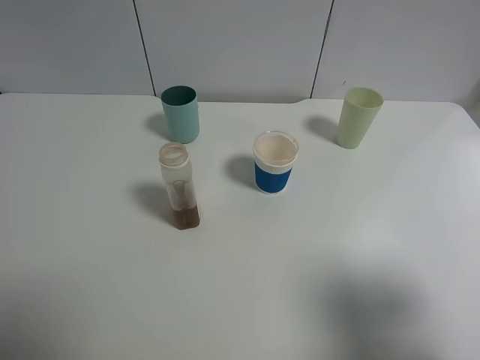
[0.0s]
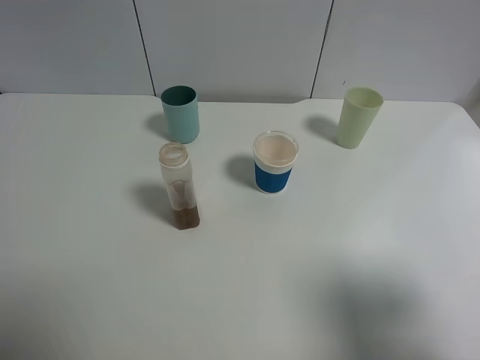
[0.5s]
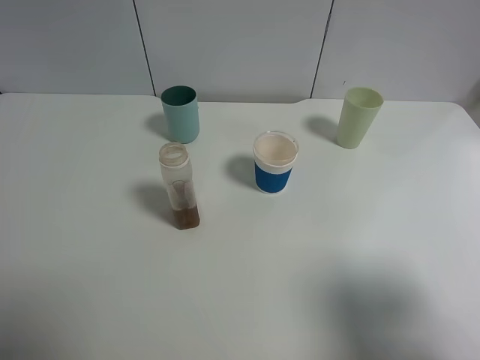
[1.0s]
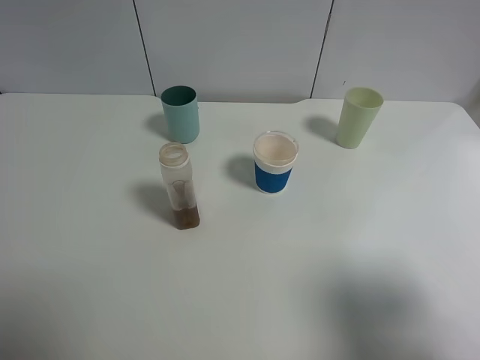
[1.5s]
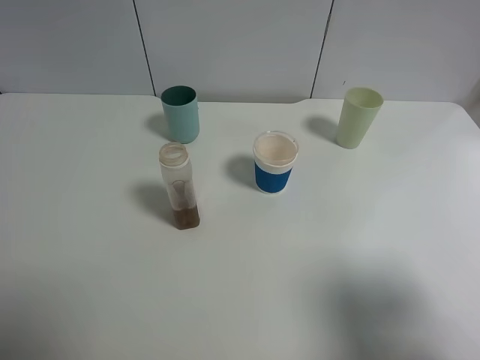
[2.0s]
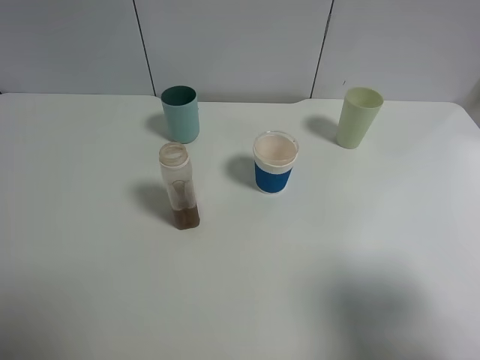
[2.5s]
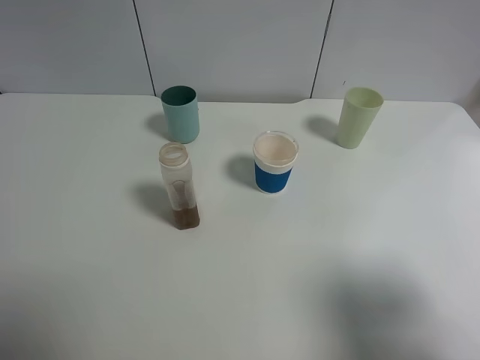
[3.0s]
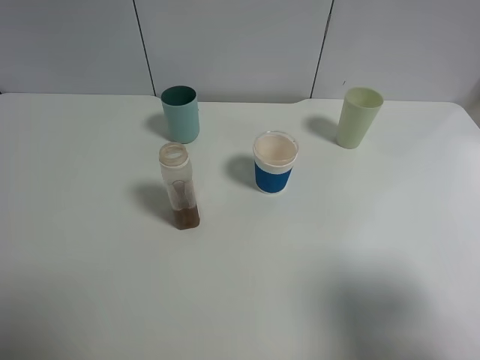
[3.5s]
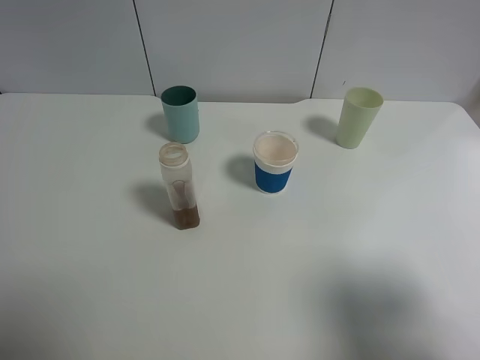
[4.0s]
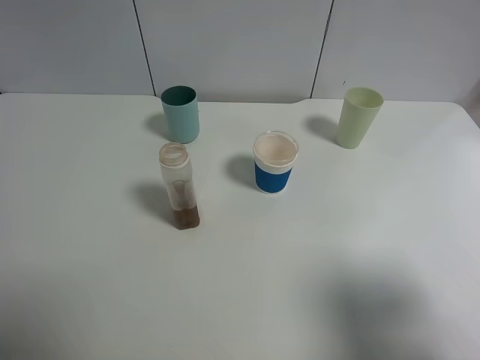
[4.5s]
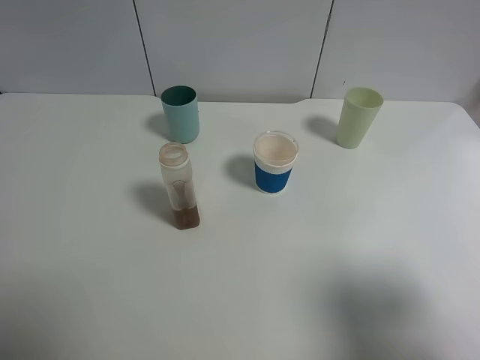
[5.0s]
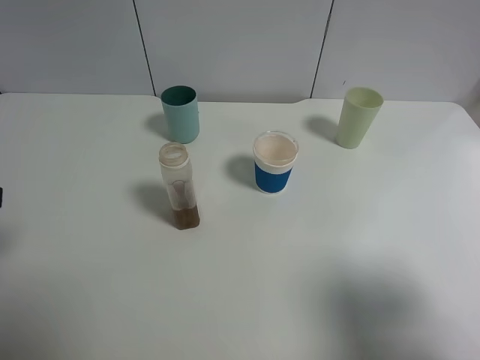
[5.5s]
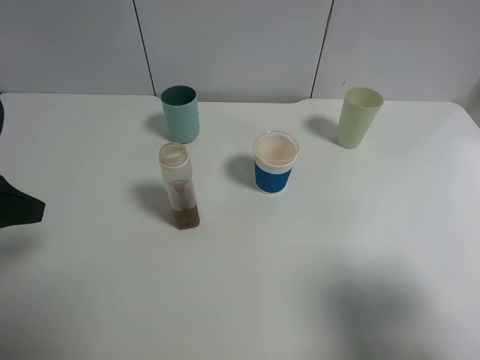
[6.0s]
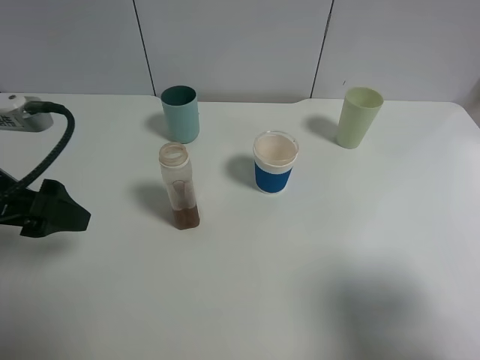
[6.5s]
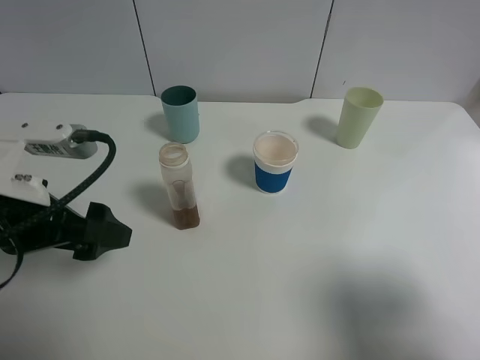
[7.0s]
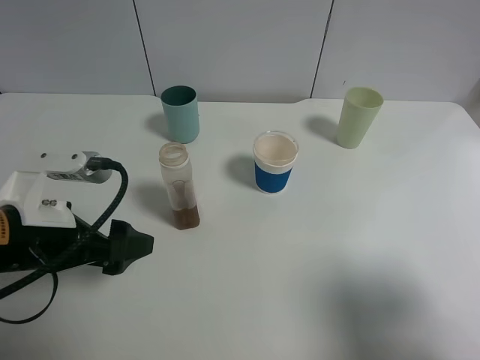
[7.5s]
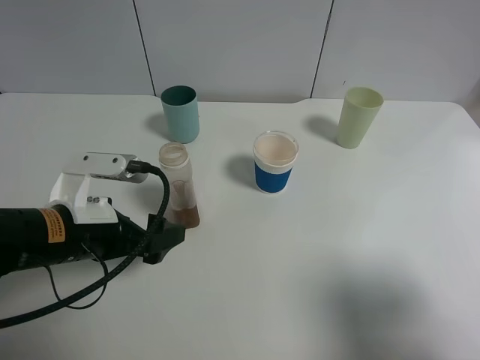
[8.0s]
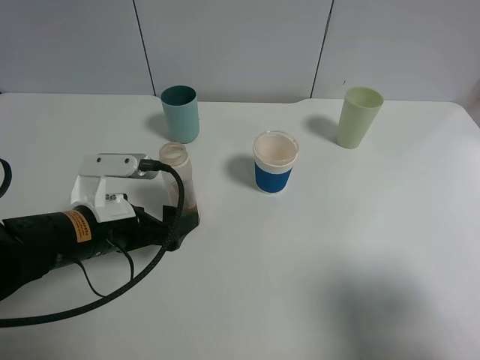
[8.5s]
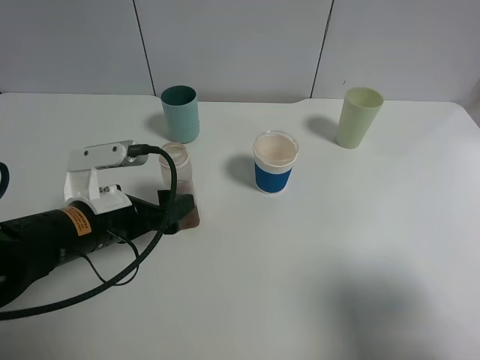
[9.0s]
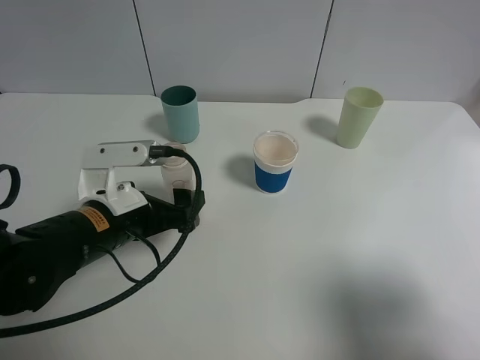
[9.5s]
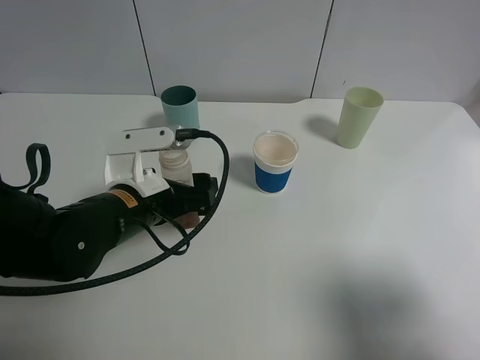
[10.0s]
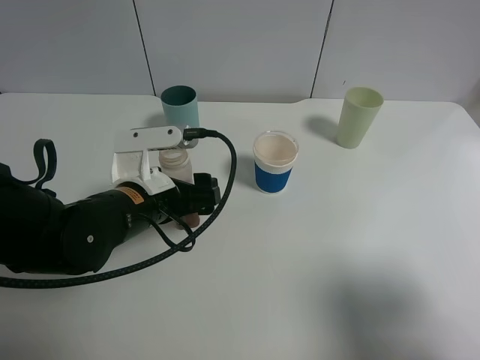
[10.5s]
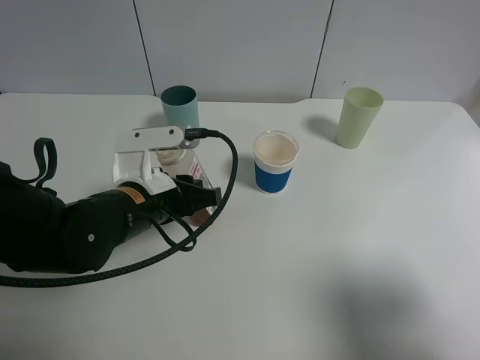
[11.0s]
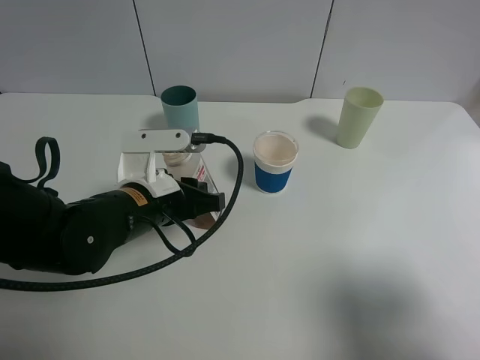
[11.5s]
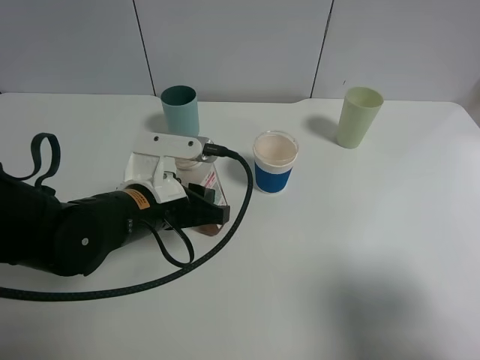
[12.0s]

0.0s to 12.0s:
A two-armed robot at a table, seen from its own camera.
Task of the whole recording: use a gripper to hold the bottle of the drink and pour it into a random cup.
Step, 0.0s to 10.5s: Grasp the cranberry juice bottle with the left gripper.
0.0s to 4.0s: Both grippers stay about where they are.
4.0s to 6.0s: The left gripper heads forward, covering about 15 cm.
6.0s to 8.0s: The left gripper shifts approximately 15 cm downward and to the right.
8.0s to 10.0s: The left gripper heads to the right, covering some 5 cm.
10.0s to 12.0s: The left gripper closes its fingers.

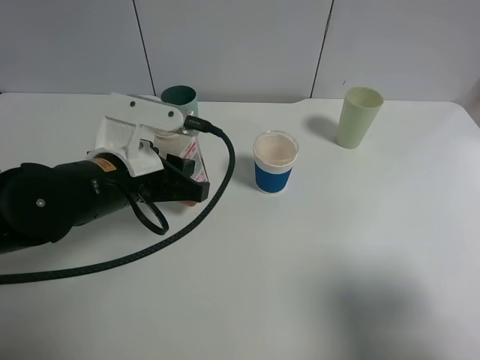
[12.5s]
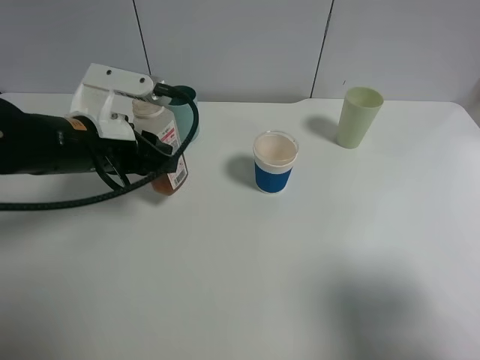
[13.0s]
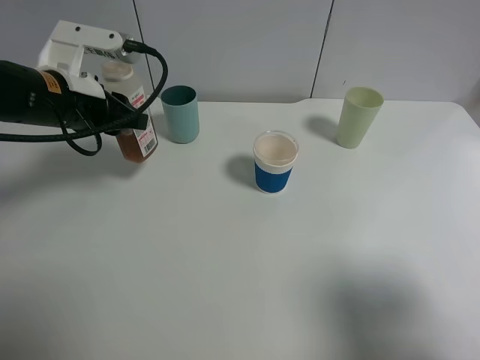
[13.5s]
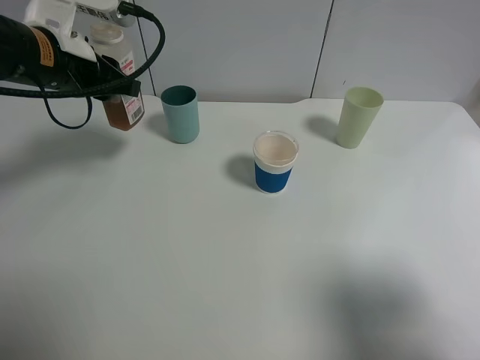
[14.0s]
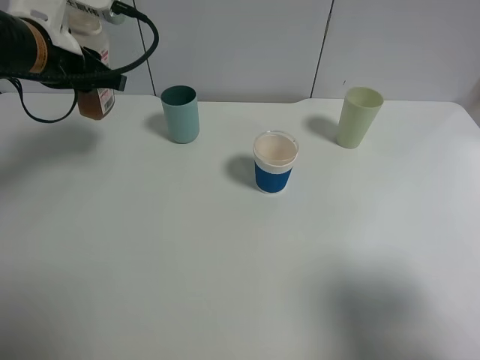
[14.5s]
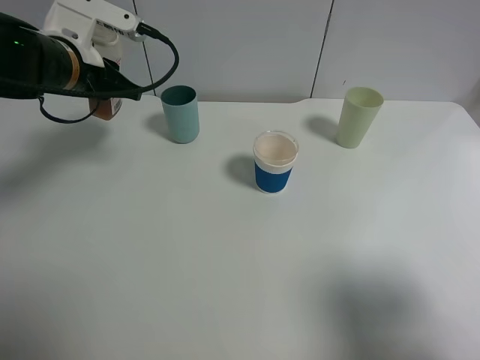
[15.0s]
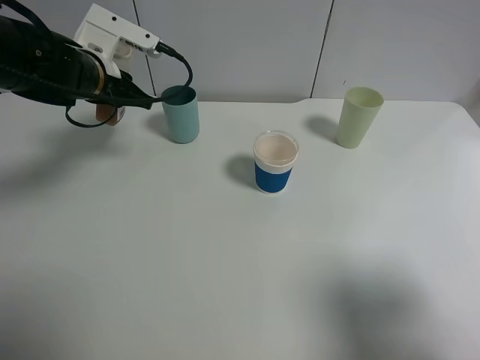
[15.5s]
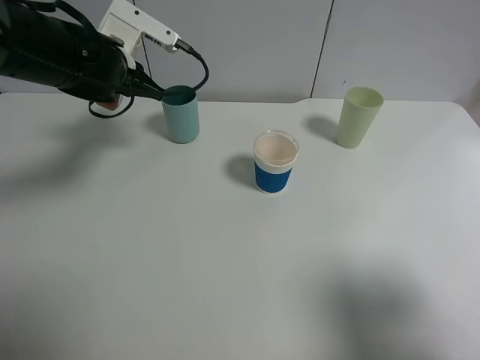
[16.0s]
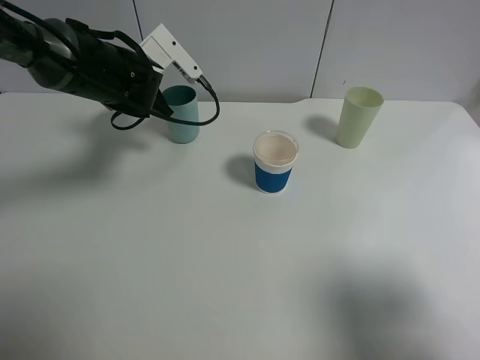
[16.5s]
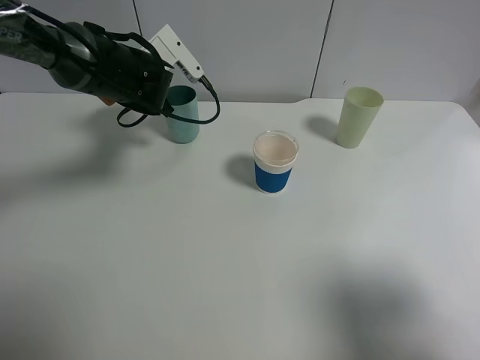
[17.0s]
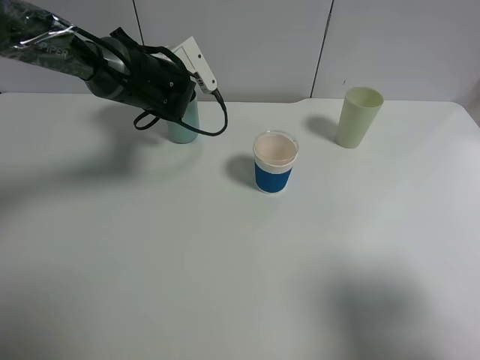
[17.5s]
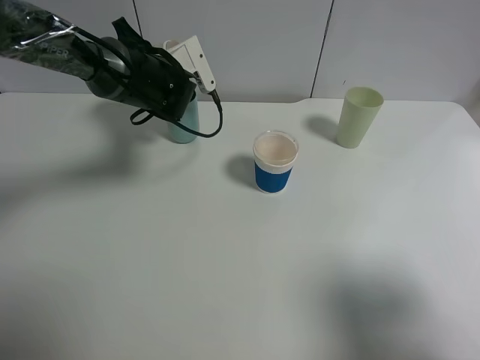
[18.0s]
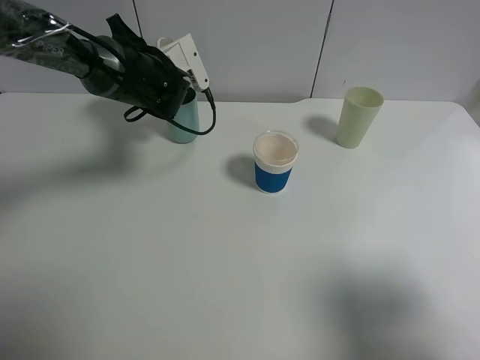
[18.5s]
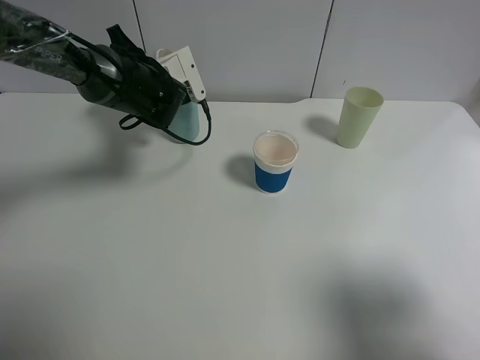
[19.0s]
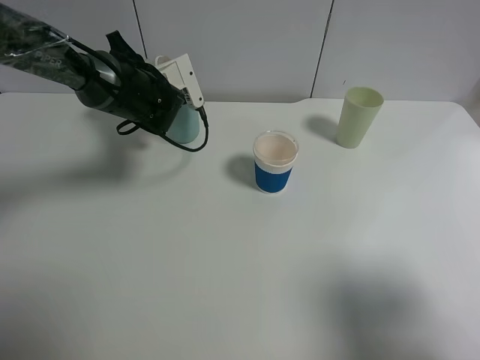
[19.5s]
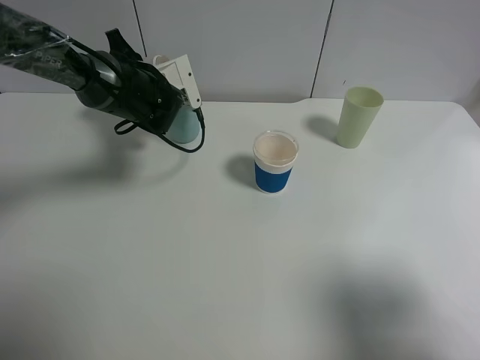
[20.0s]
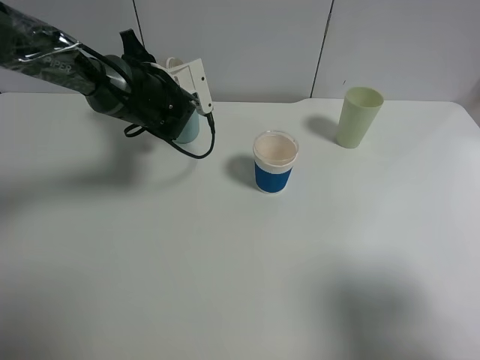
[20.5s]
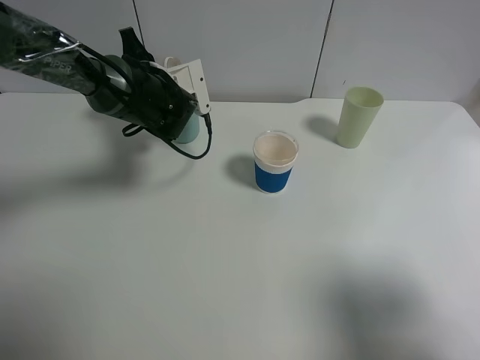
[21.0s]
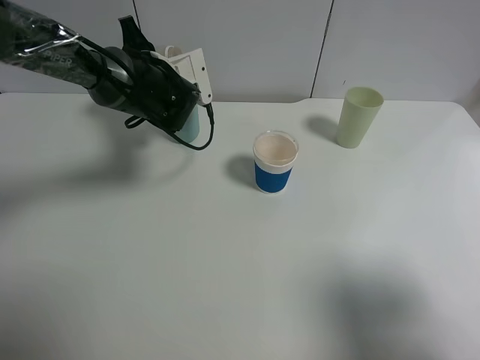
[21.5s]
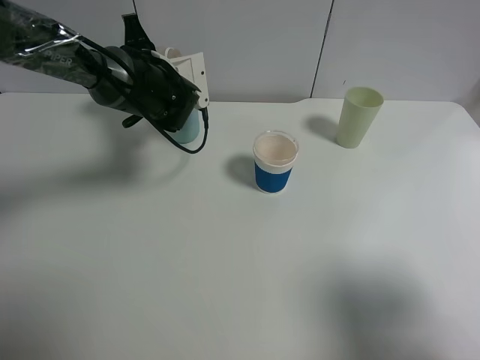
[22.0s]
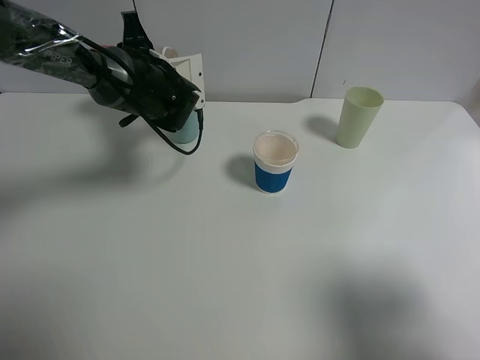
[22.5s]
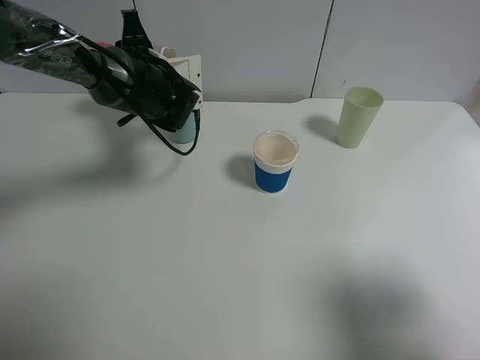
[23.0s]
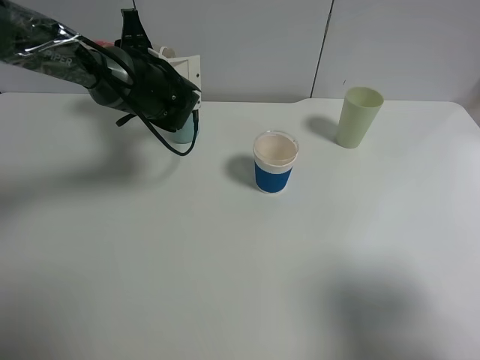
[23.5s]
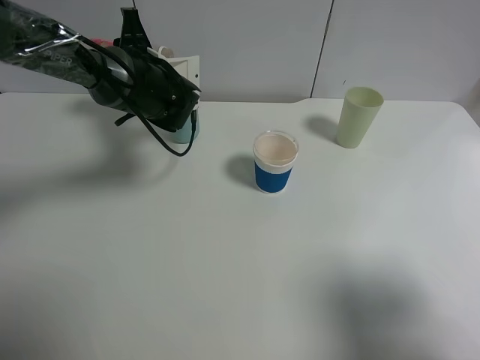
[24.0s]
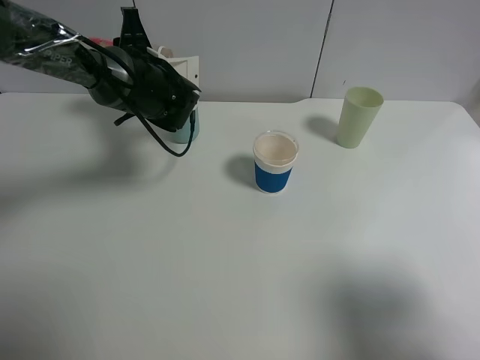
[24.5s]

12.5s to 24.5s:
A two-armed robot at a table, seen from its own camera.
Task of the whole recording: use a gripper to hold the bottle of the drink and pour it into a random cup.
12.5s to 14.5s: The left gripper is displaced forward, upward and to the left by some 15 cm.
14.5s to 16.5s: The left gripper goes some 15 cm downward, forward and to the right.
18.5s to 22.5s: The grippers move only a little.
22.5s to 24.5s: The grippers stay close to where they were, moving slightly.

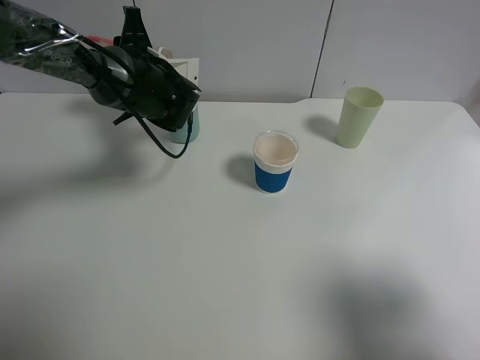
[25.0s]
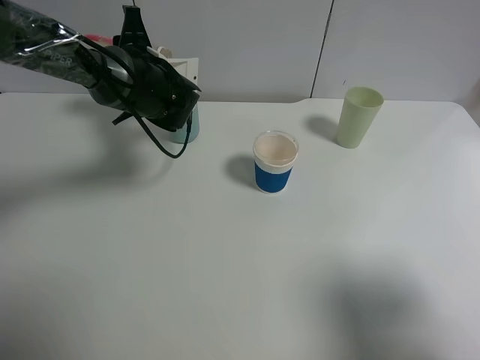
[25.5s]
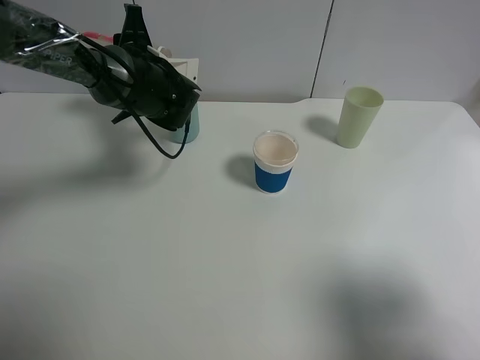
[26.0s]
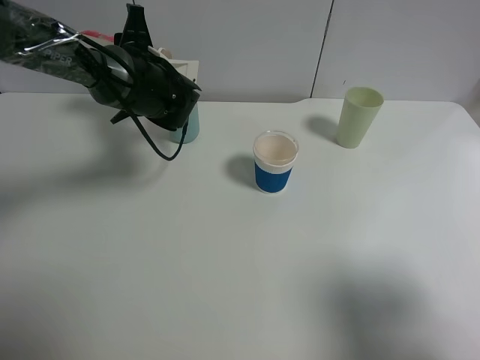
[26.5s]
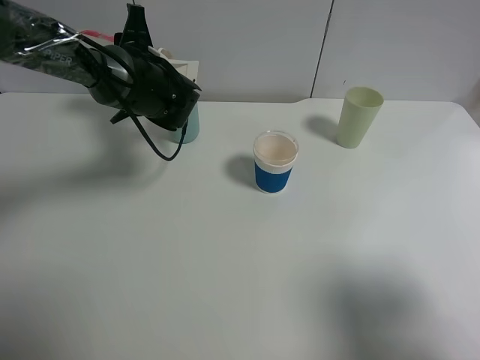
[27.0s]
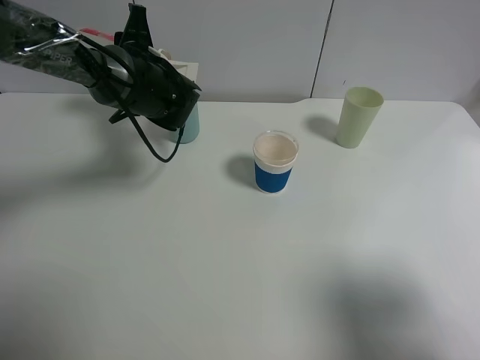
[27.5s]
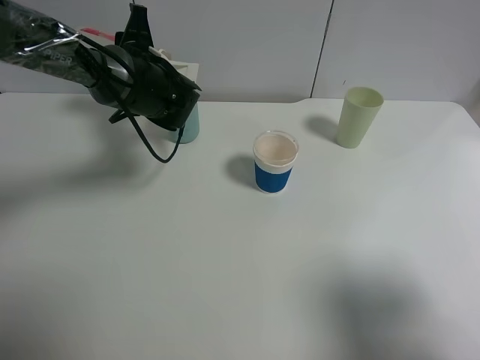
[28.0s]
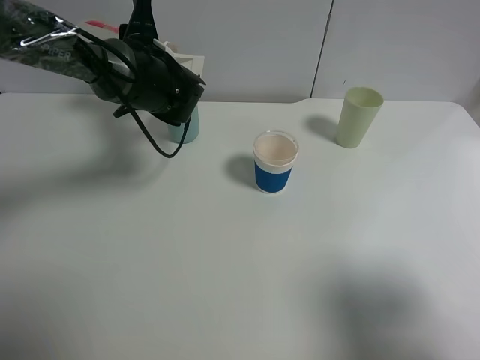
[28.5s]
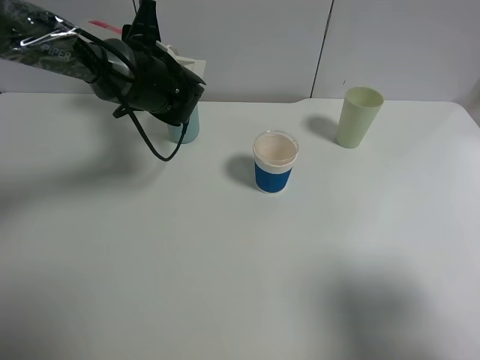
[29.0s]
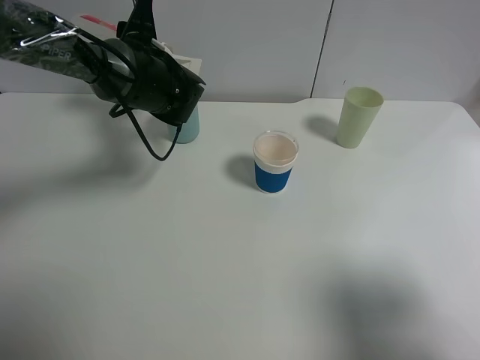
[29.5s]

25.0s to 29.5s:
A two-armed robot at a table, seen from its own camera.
Task of the whole recording: use a gripper to hold the bottle of the drink and pour it into a random cup.
25.0s to 29.5s: The grippers move only a little.
